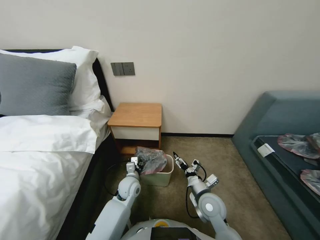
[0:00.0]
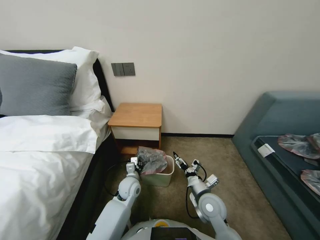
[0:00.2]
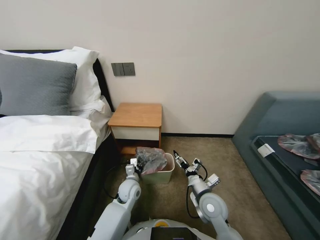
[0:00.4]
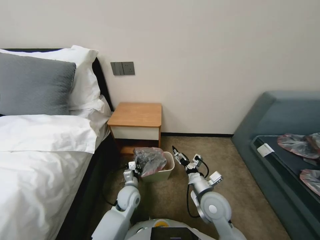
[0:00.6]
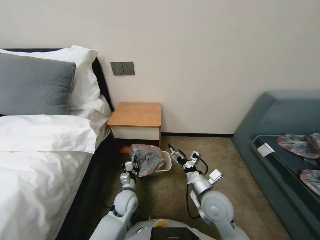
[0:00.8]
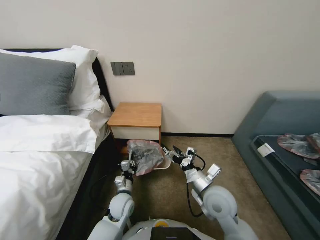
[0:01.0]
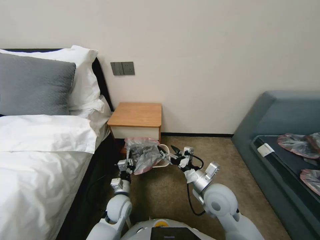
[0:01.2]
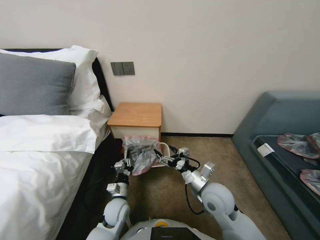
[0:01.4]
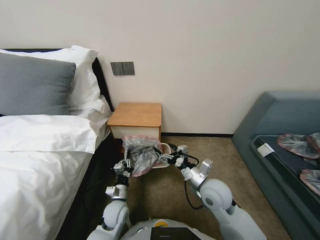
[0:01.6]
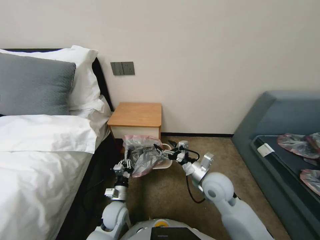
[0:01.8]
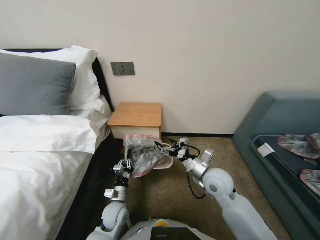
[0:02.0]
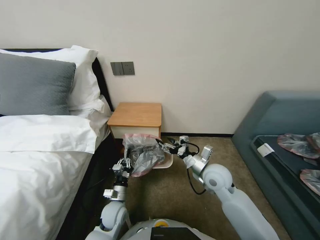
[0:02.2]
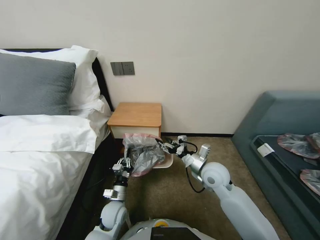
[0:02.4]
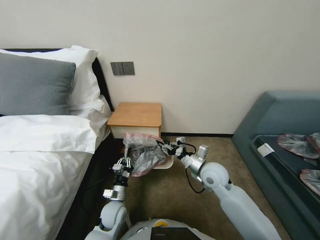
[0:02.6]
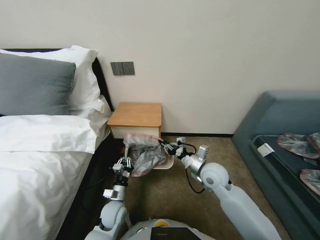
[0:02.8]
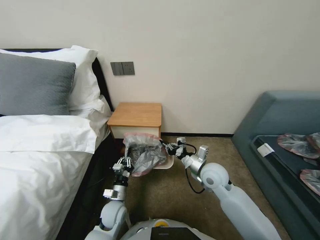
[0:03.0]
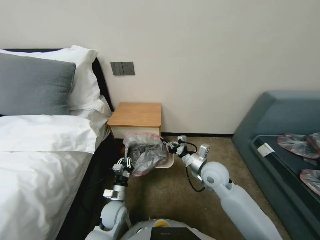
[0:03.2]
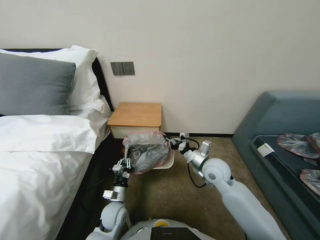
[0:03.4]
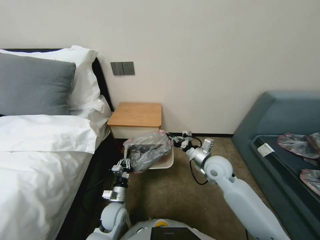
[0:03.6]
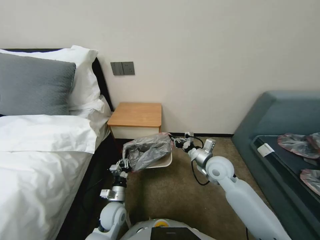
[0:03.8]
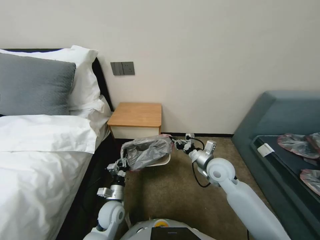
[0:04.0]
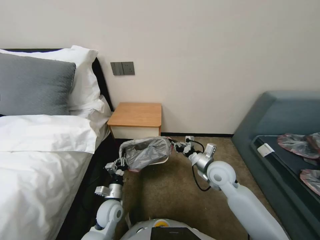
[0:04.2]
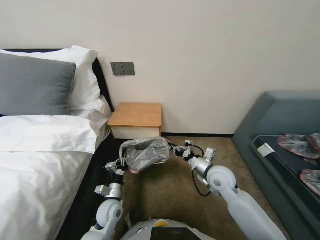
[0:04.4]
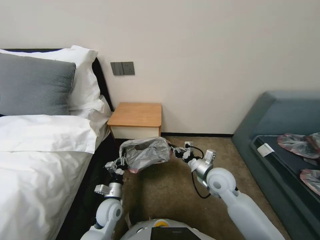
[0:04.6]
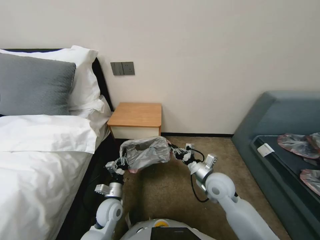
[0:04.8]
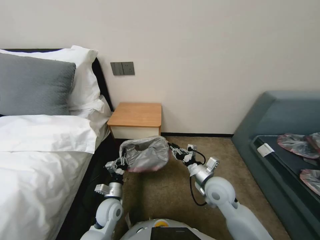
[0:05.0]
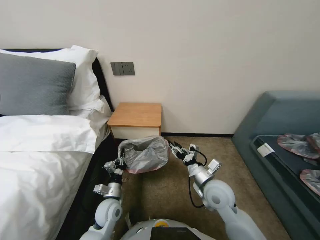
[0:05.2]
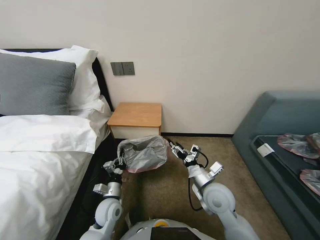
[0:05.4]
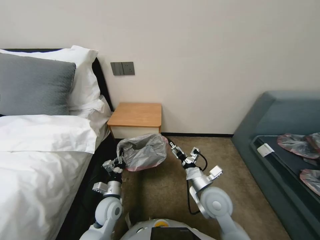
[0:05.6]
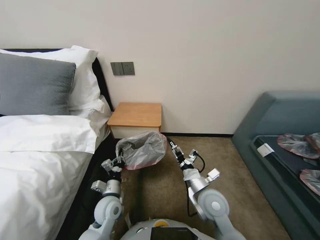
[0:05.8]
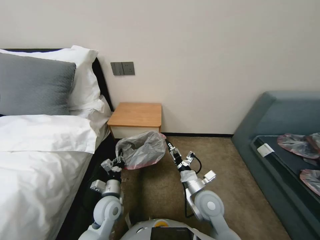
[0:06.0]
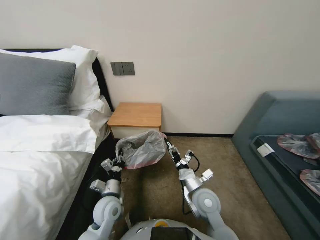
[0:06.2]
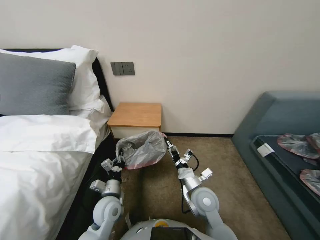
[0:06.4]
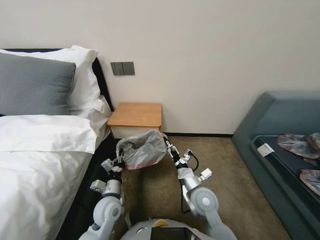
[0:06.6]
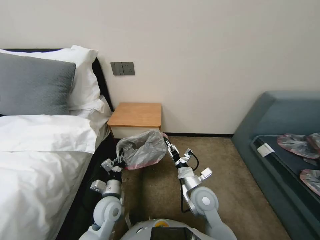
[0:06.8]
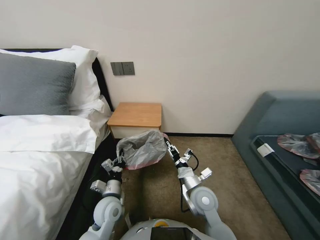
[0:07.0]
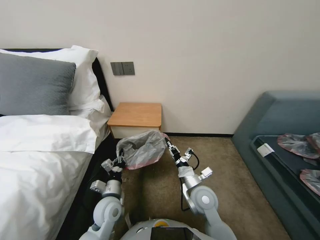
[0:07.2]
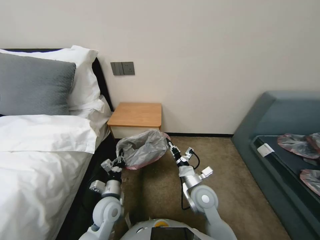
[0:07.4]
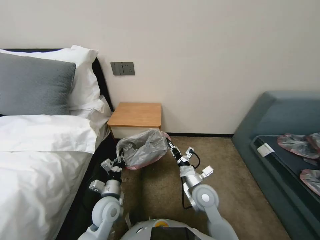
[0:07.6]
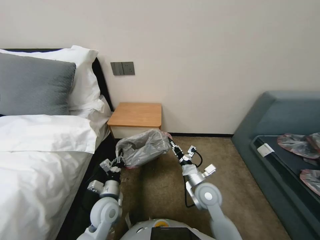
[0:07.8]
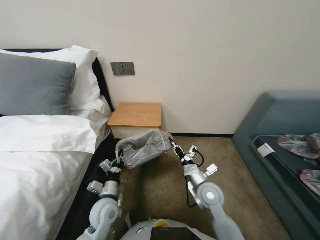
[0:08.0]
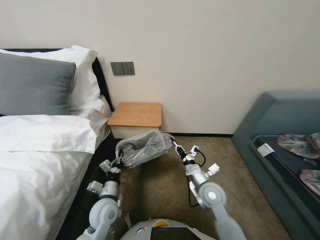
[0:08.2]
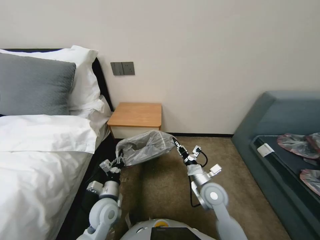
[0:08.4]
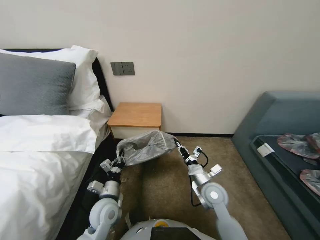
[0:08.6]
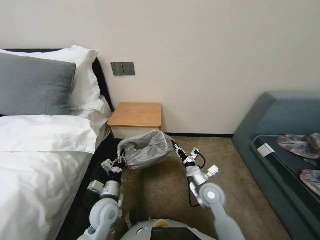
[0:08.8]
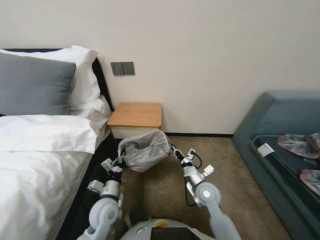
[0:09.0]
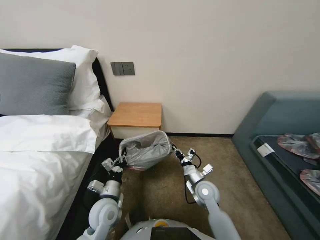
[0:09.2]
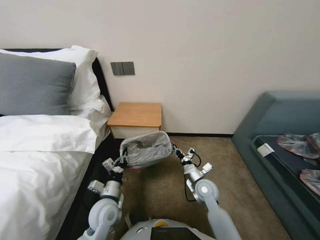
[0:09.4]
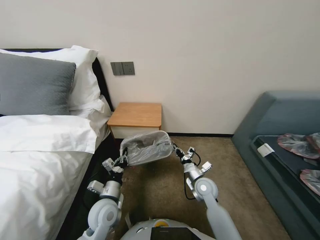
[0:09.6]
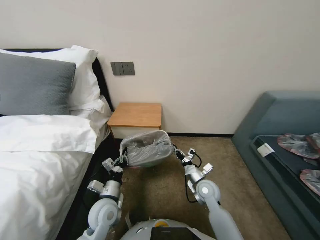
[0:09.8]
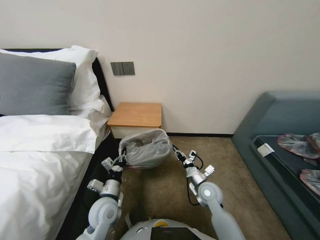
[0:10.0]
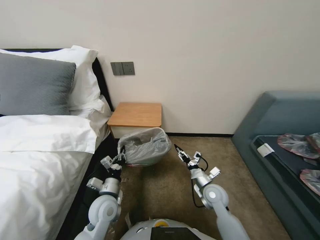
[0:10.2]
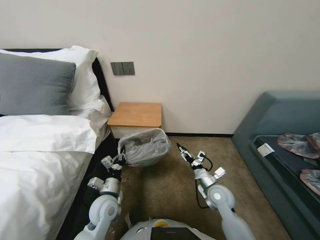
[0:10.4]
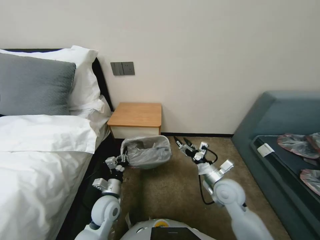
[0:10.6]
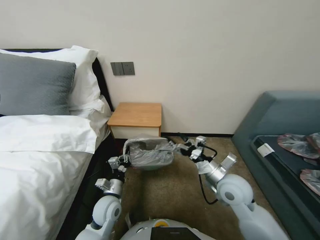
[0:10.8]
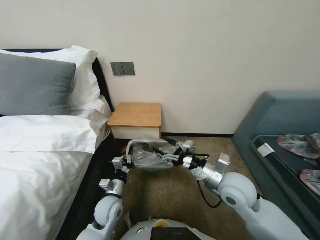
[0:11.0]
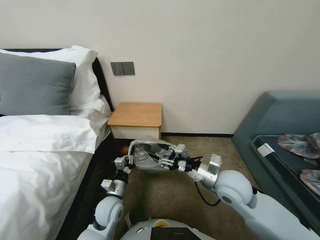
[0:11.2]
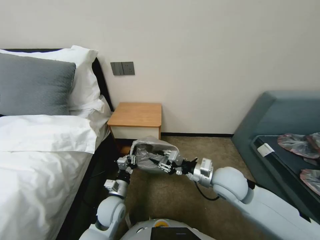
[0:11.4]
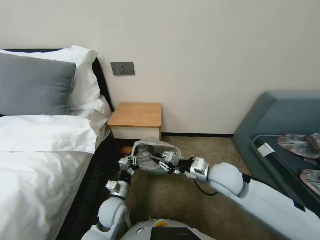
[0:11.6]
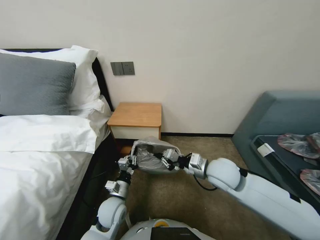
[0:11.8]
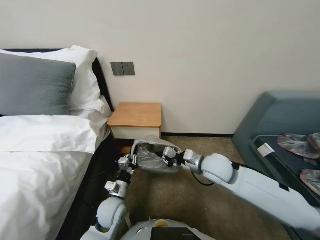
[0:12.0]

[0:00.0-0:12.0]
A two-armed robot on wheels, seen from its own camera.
Task of the whole recording: Pick up the garbage bag from the table and place it over the trash can.
0:00.0 to 0:01.6: The left gripper travels backward by about 10 cm, and closes. Meanwhile the right gripper moves upward, roughly 10 cm.
0:01.6 to 0:03.0: The right gripper shifts roughly 5 cm forward, and closes its fingers.
0:03.0 to 0:04.4: The grippers stay close to where they were, moving slightly.
0:04.4 to 0:06.0: The right gripper shifts approximately 10 cm backward and to the left, and opens.
0:06.0 to 0:07.6: The right gripper closes its fingers.
0:07.6 to 0:09.0: There are only small adjustments of the grippers.
0:09.0 to 0:10.4: The right gripper moves roughly 5 cm, and opens its fingers.
0:10.4 to 0:12.0: The right gripper heads upward, covering roughly 15 cm, and closes.

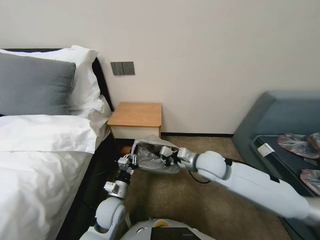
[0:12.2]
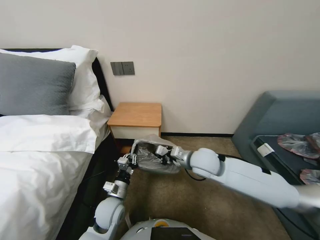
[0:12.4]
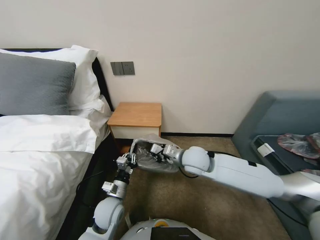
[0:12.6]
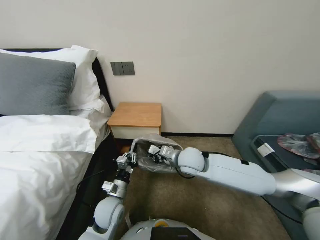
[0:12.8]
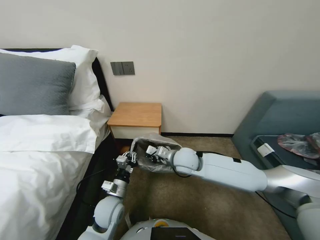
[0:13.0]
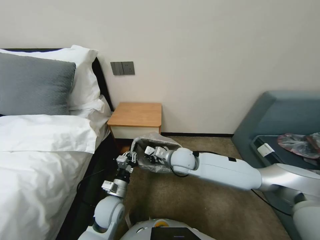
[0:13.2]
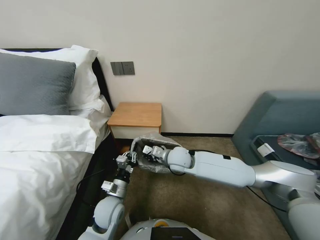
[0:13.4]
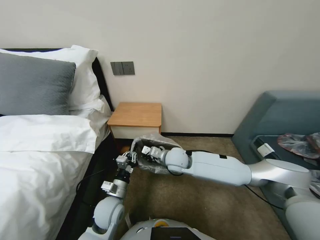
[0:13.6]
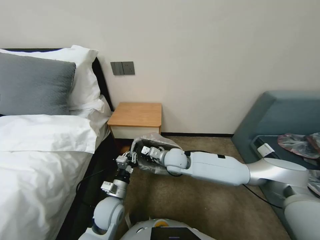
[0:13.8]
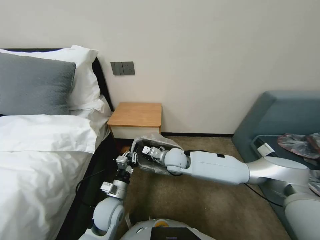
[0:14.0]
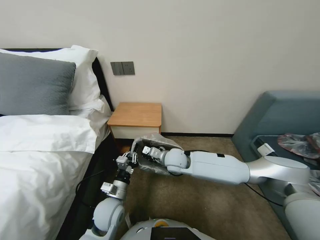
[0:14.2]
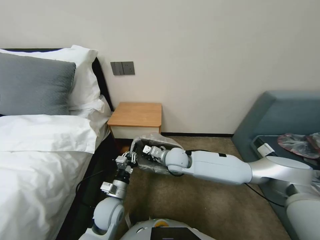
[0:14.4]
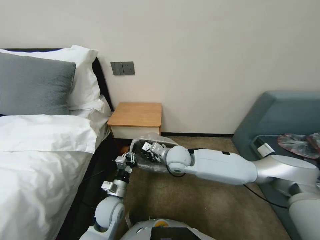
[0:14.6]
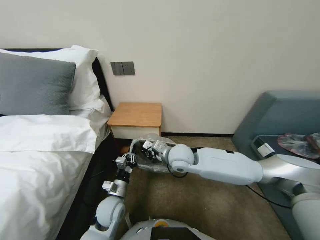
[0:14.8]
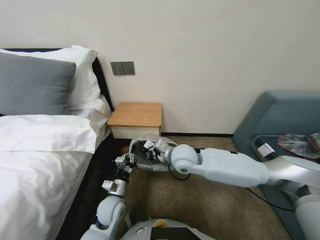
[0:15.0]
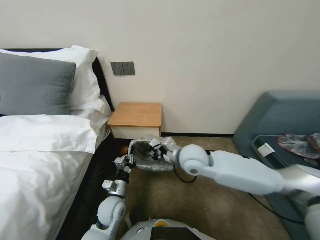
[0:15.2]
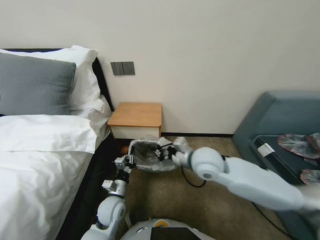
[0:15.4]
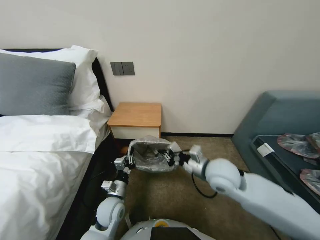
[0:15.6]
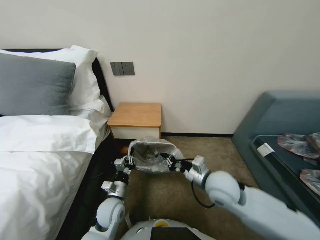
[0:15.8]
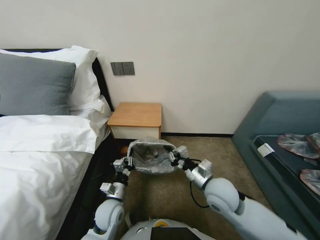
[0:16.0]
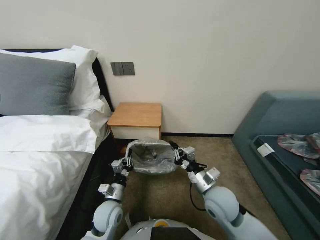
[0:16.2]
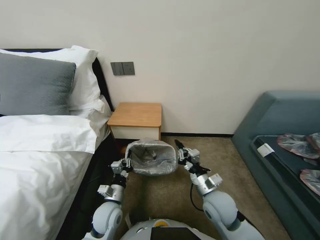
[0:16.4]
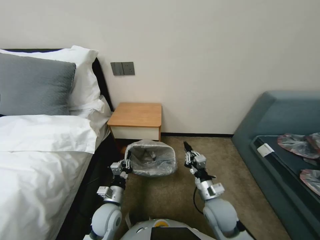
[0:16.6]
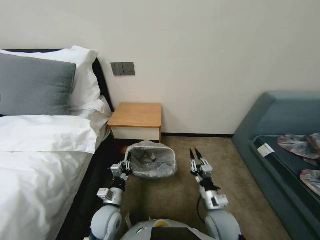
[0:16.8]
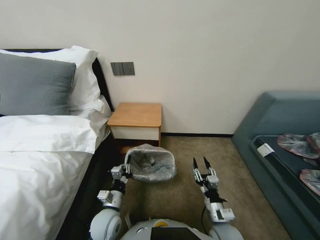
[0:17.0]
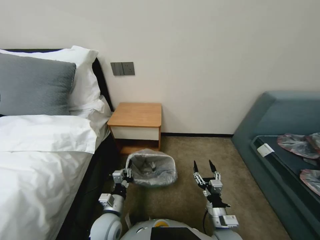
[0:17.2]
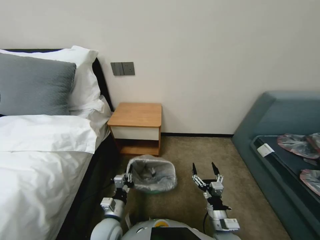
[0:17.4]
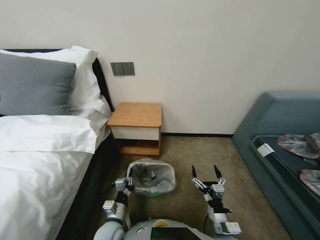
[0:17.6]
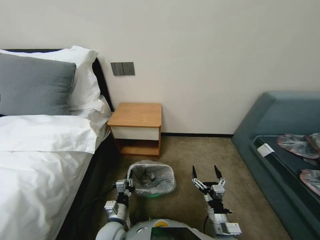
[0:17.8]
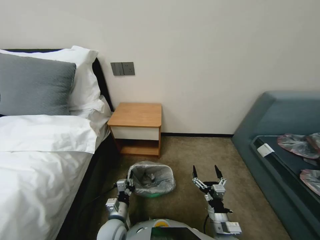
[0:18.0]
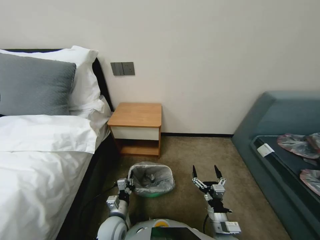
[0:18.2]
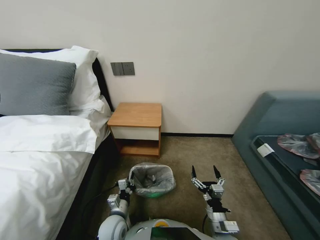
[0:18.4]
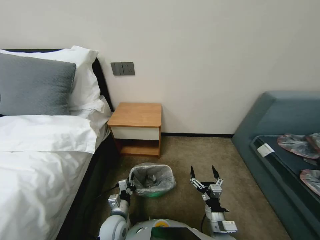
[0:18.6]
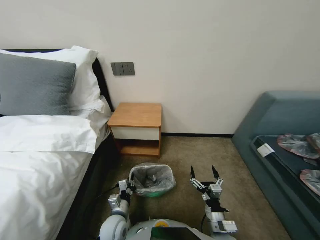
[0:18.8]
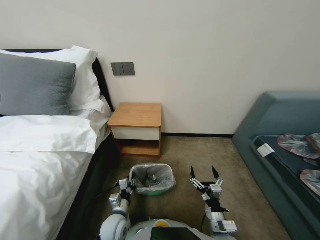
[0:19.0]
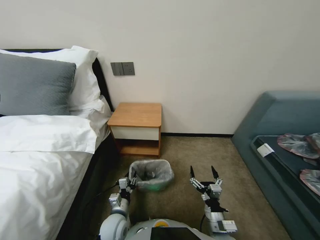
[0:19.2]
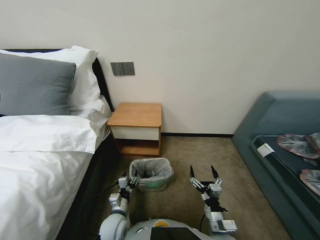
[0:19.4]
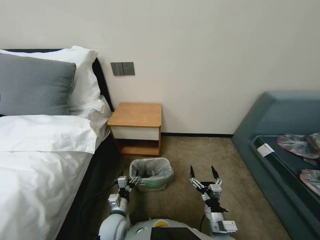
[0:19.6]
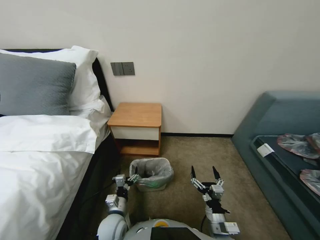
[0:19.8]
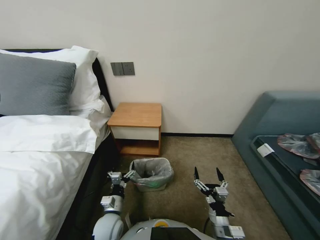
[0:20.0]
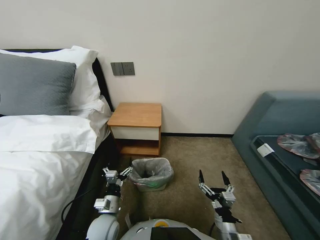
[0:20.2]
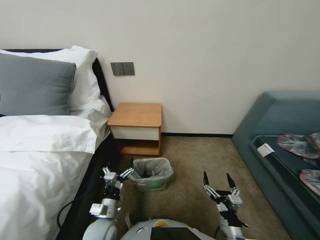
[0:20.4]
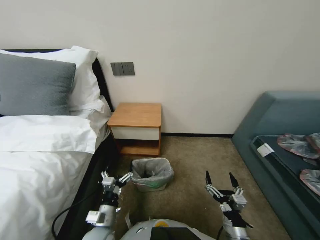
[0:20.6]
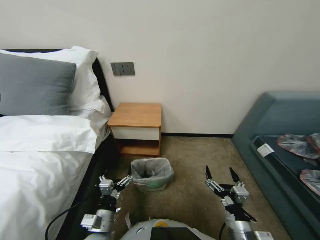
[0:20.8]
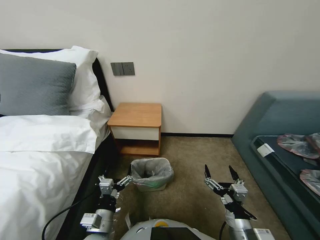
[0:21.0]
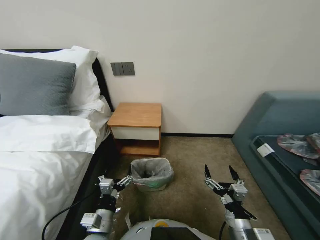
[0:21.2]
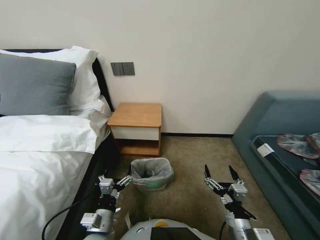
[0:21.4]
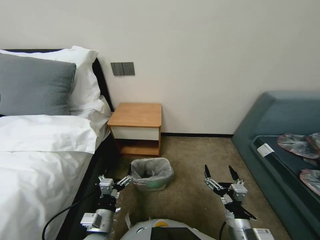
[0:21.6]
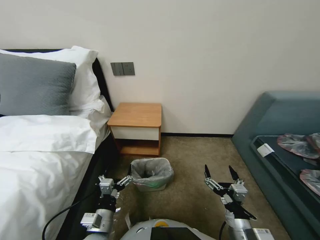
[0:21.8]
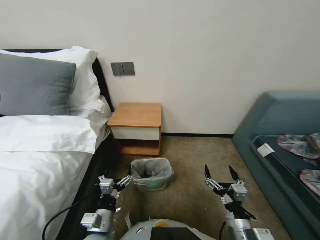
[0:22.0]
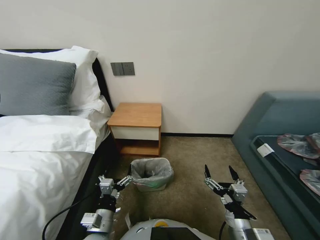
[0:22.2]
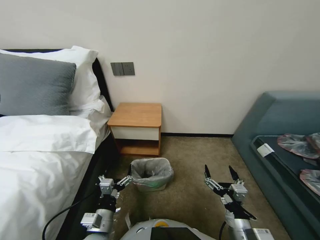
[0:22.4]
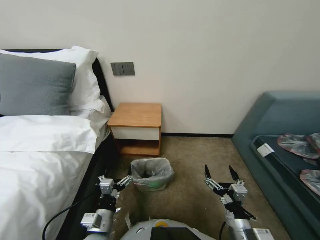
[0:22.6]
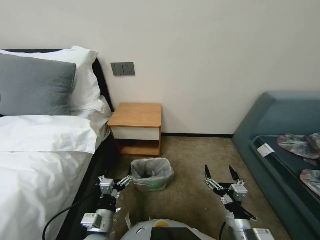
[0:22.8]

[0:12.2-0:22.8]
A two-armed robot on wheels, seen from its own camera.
Task of the whole recording: Pick up the garbage bag from the table and place it over the trash can.
0:12.2 to 0:13.8: The right gripper heads to the left, covering approximately 10 cm.
0:13.8 to 0:15.2: The right gripper goes roughly 5 cm upward.
0:15.2 to 0:16.8: The right gripper heads downward, backward and to the right, covering approximately 25 cm.
0:16.8 to 0:18.2: The right gripper moves backward, roughly 5 cm, and opens up; the left gripper ends up about 5 cm from where it was.
0:18.2 to 0:19.8: The left gripper opens its fingers.
0:19.8 to 0:21.2: The left gripper goes about 10 cm upward and backward, while the right gripper moves upward, roughly 10 cm.
0:21.2 to 0:22.8: The two grippers keep their place.
